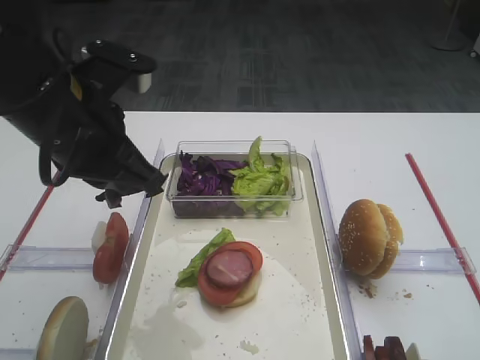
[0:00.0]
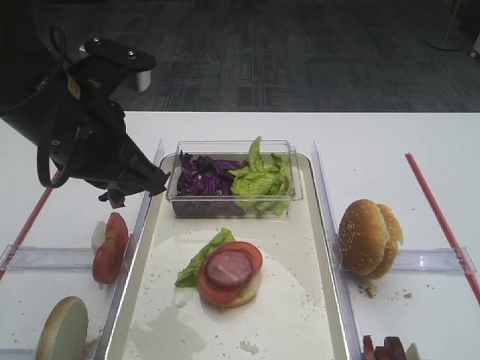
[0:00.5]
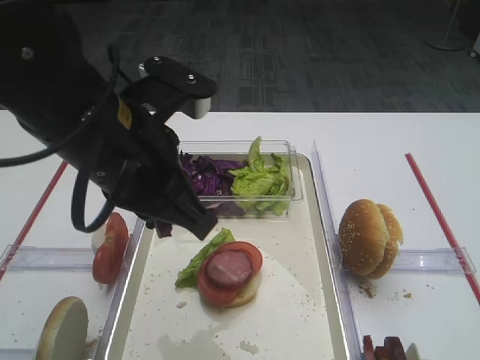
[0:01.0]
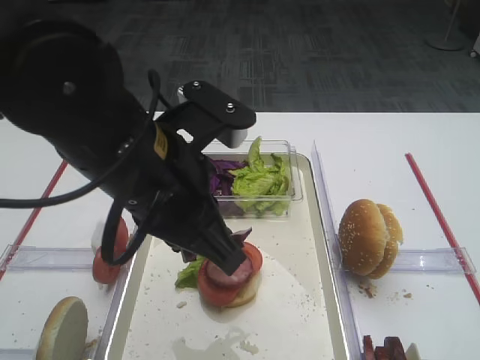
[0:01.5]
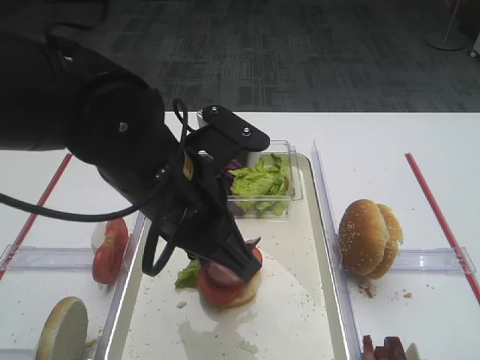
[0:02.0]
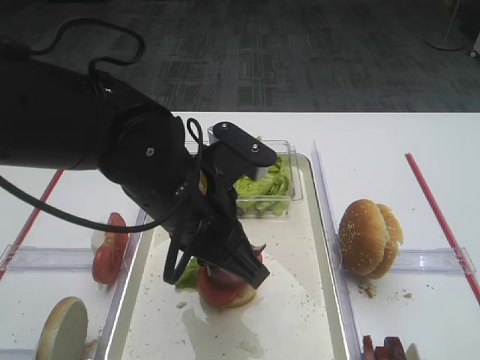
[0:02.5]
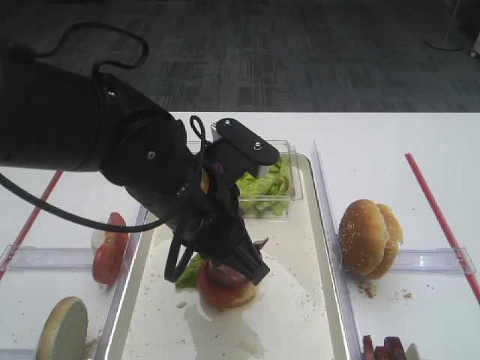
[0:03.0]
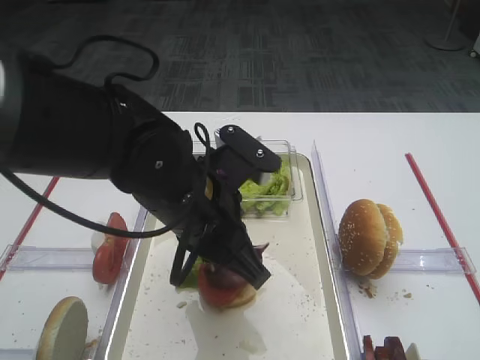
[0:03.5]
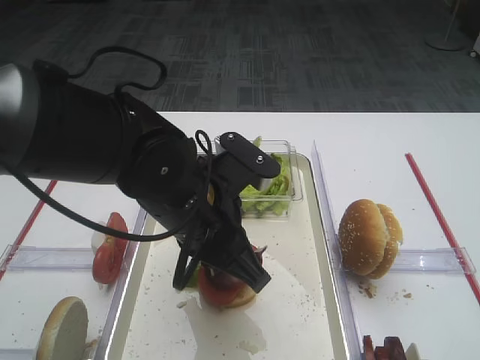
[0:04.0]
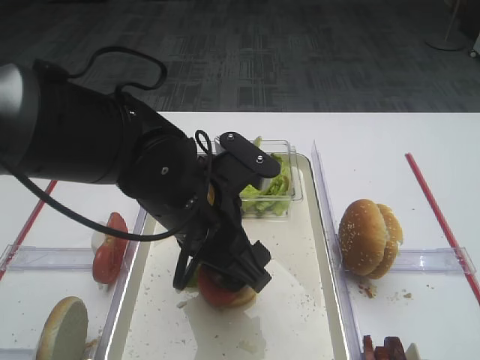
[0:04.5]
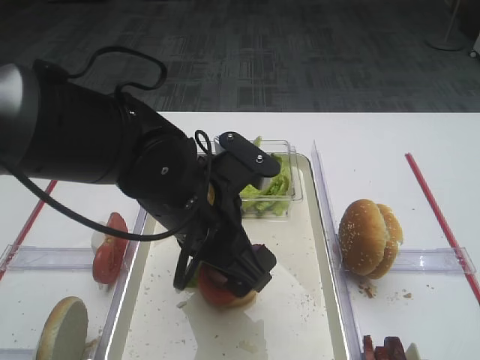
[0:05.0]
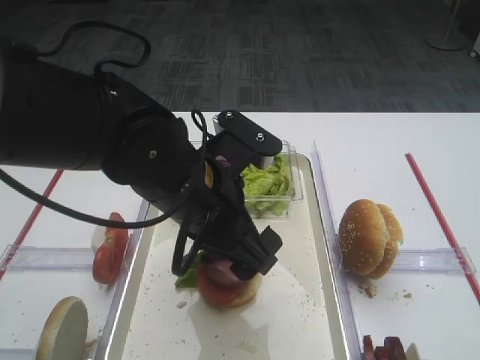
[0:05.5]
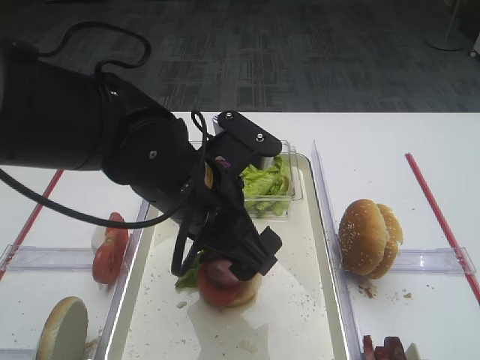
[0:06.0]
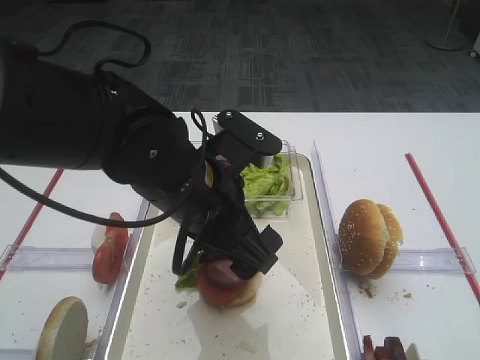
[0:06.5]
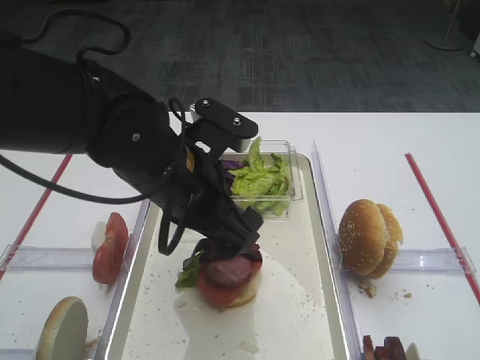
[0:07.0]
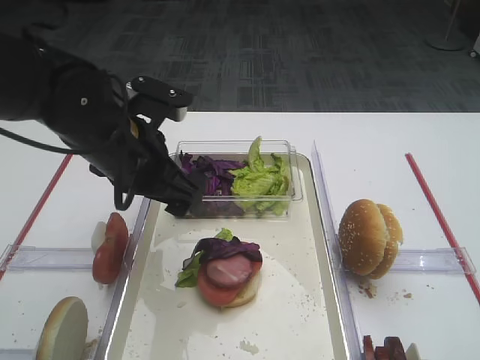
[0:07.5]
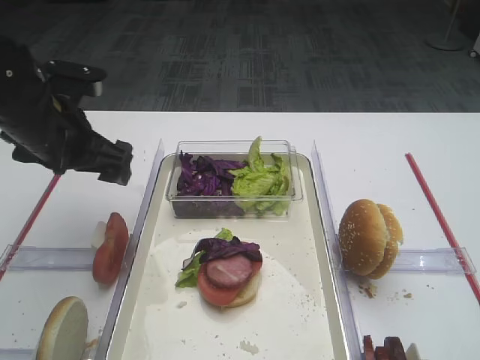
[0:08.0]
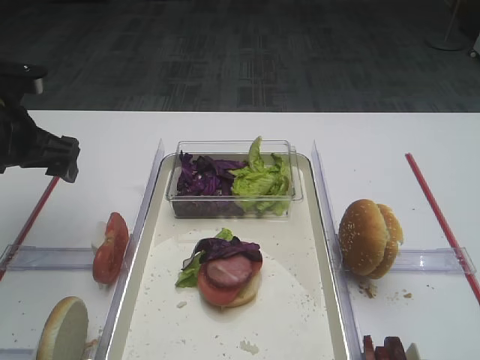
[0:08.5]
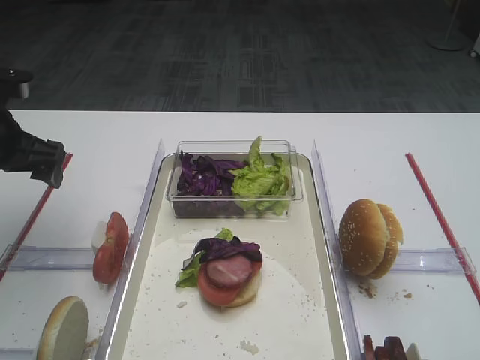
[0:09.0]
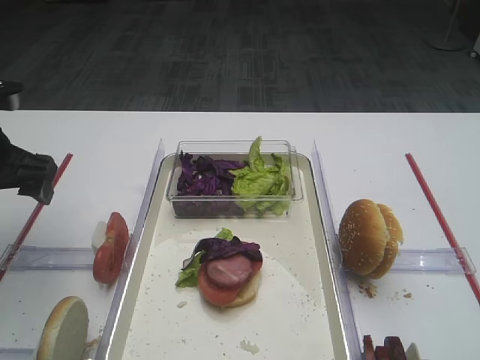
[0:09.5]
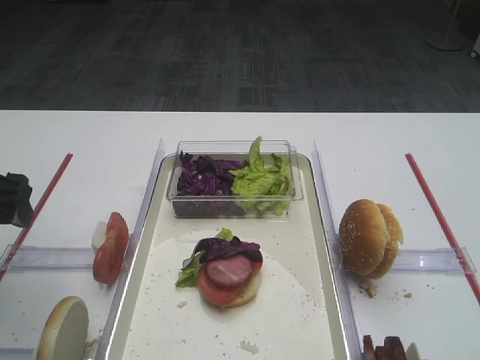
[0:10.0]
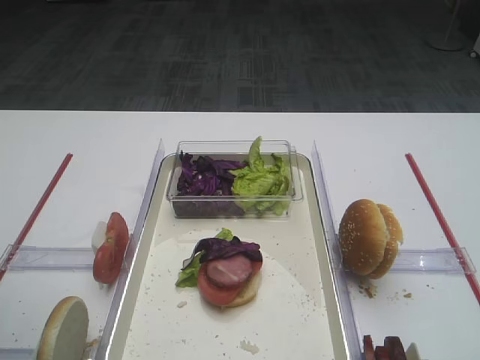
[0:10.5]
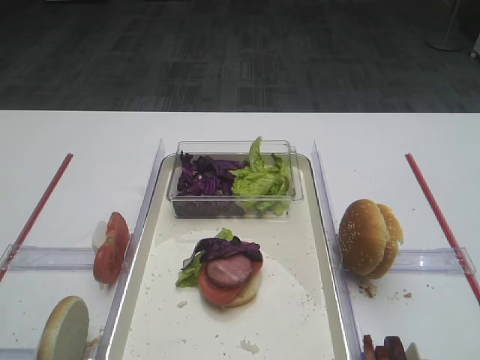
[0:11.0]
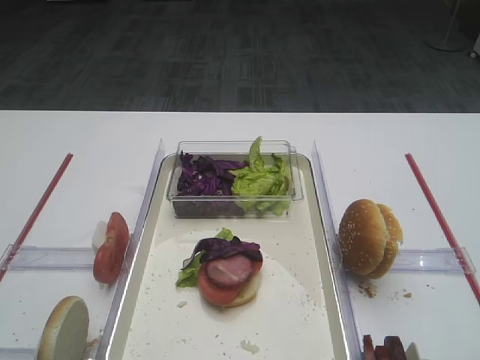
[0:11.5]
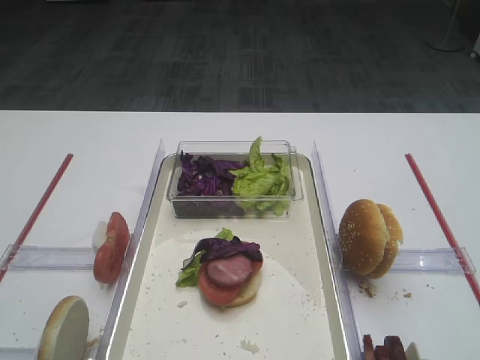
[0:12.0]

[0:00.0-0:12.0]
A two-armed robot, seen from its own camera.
Step, 0:00.0 to 0:07.0: Place the purple cabbage on the cutlet with the left gripper.
0:00.0 to 0:02.0: The left gripper moves to the right, some 10 cm.
0:02.0 to 0:04.0: The left gripper changes place by approximately 5 cm.
0:04.0 to 0:06.0: The left gripper opens its fingers.
0:06.0 to 0:08.0: The left gripper shifts roughly 20 cm to the left and forward.
0:08.0 to 0:10.0: The left gripper goes some 10 cm backward and to the left.
0:10.0 to 0:12.0: The left gripper moves backward, some 25 cm.

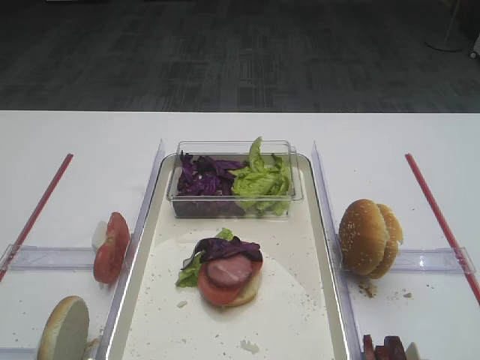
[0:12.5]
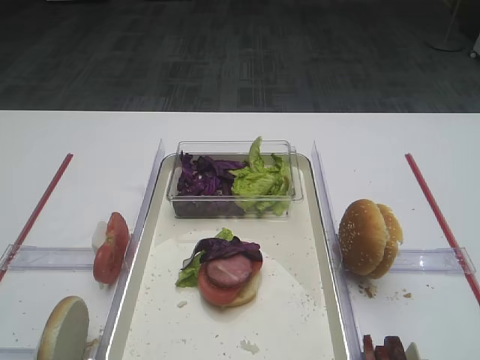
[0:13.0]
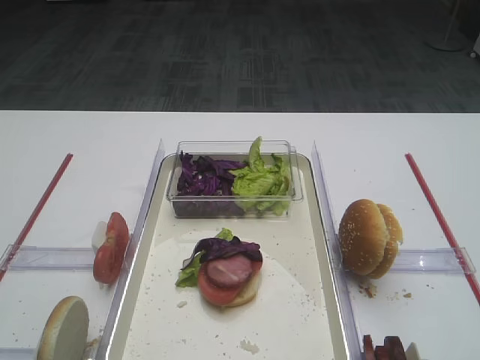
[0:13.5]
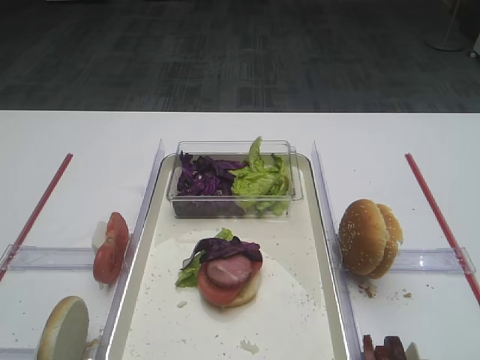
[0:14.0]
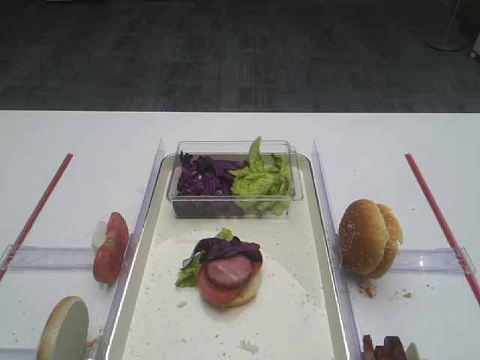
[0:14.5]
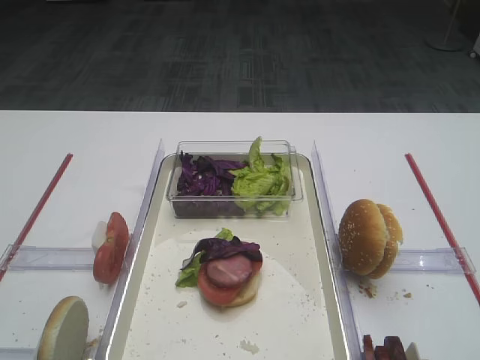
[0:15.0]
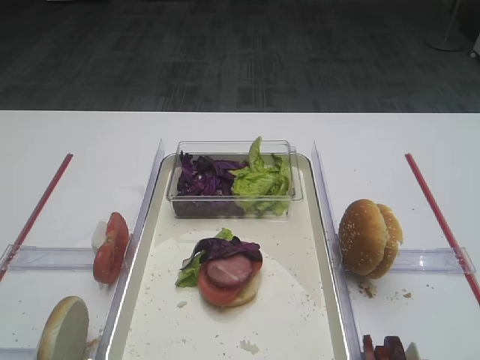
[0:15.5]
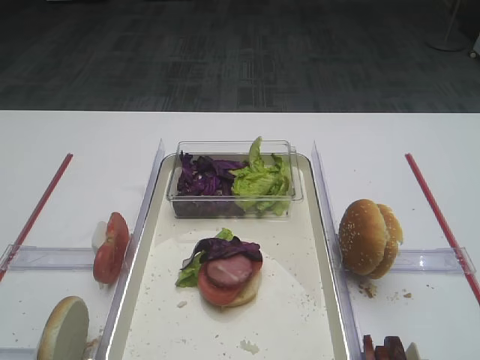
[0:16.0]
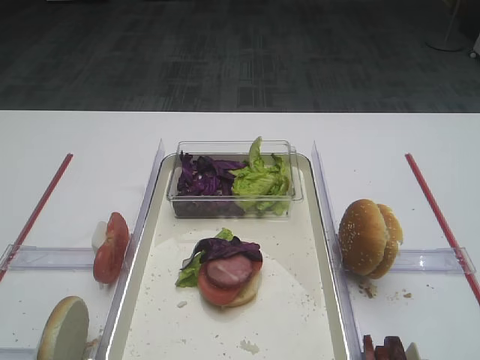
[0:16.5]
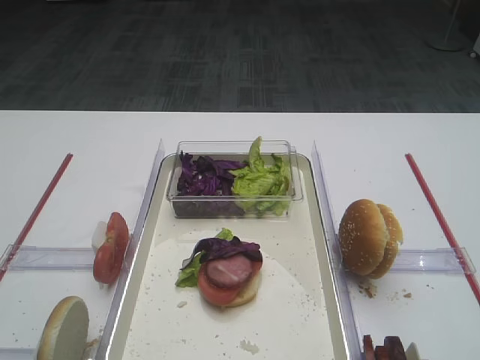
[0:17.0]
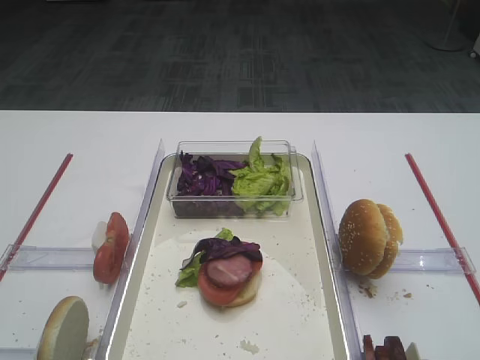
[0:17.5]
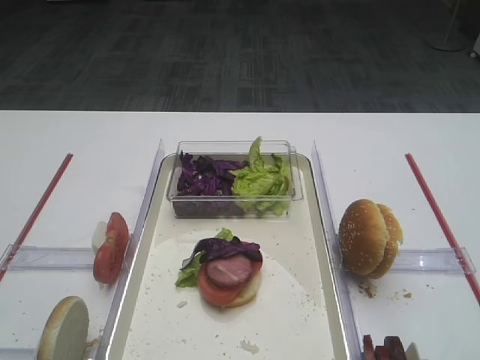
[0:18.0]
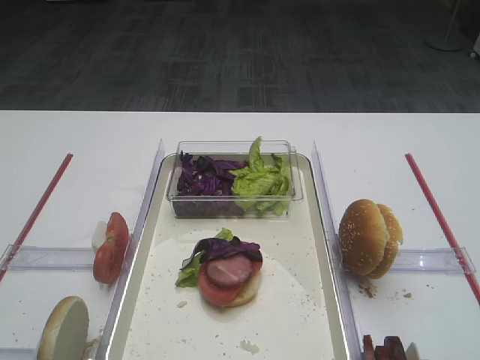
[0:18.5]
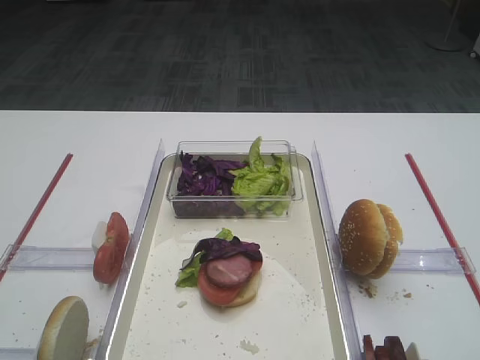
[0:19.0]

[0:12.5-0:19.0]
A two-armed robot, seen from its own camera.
0:12.5 to 0:14.5: Both grippers stay put.

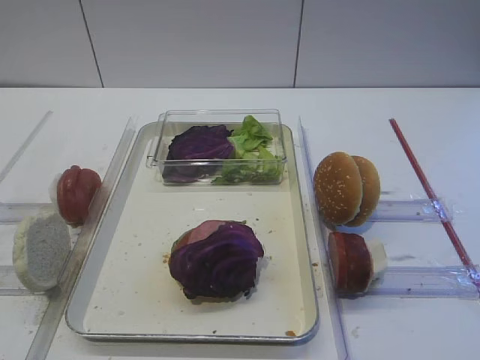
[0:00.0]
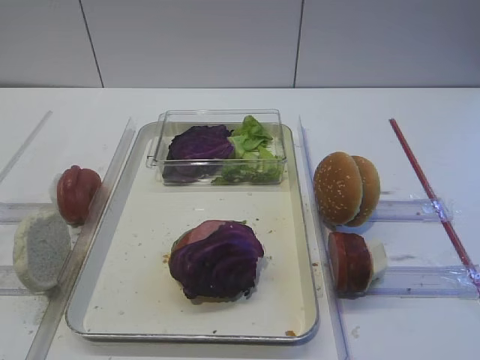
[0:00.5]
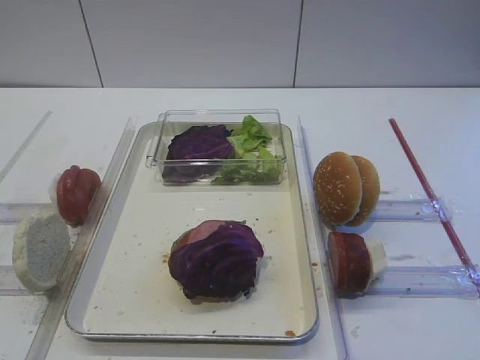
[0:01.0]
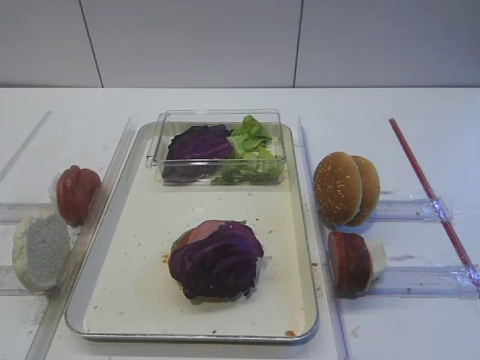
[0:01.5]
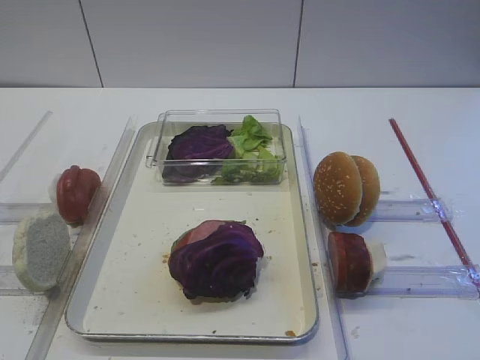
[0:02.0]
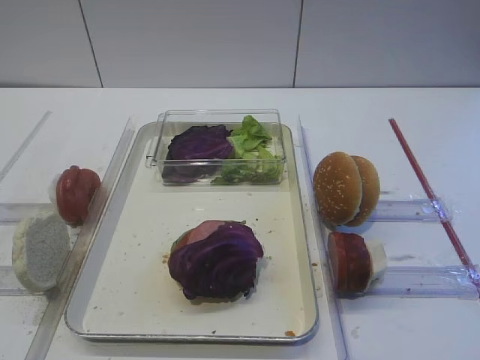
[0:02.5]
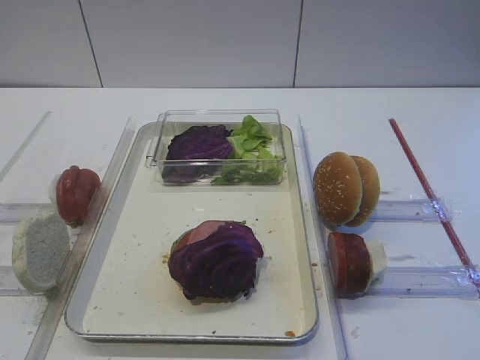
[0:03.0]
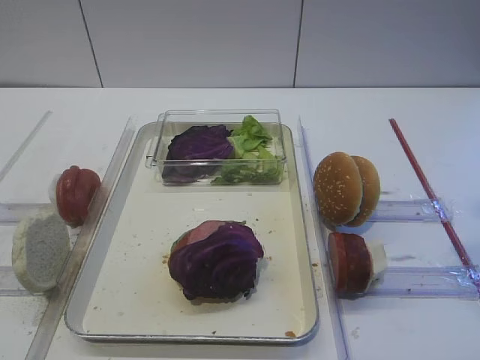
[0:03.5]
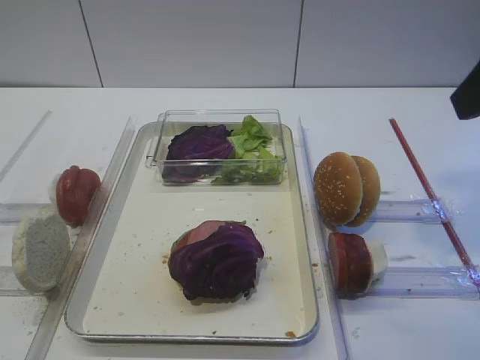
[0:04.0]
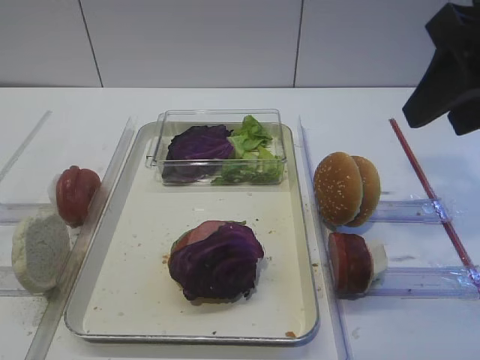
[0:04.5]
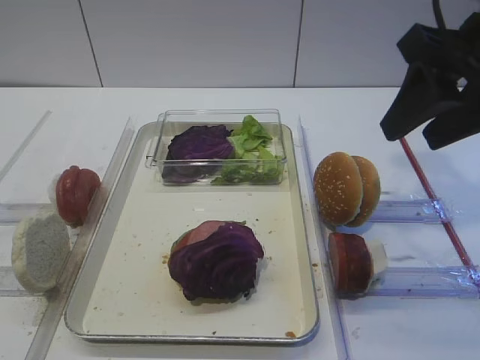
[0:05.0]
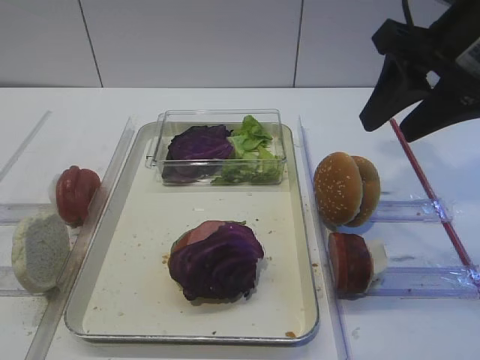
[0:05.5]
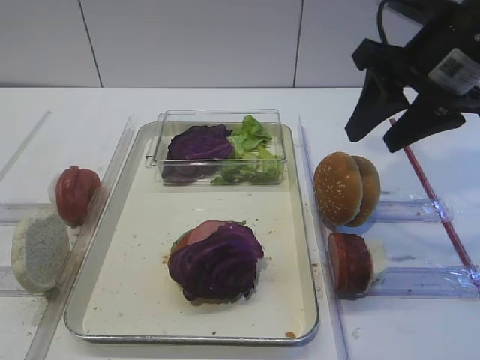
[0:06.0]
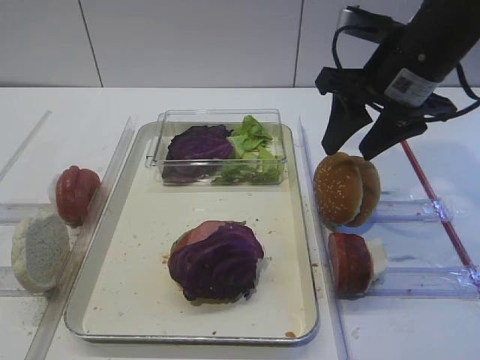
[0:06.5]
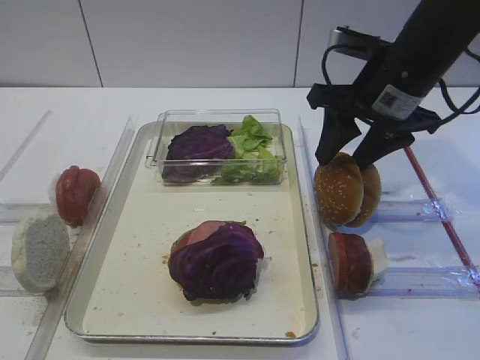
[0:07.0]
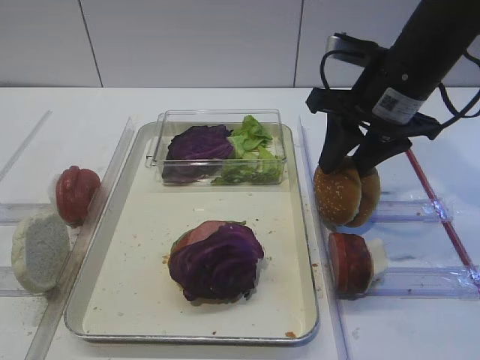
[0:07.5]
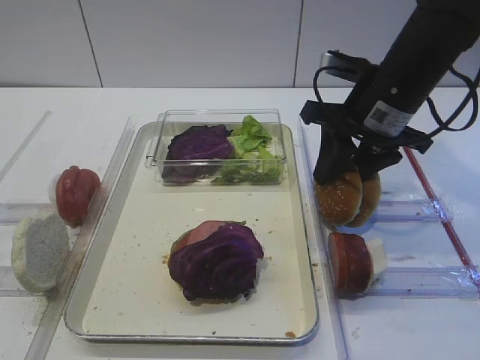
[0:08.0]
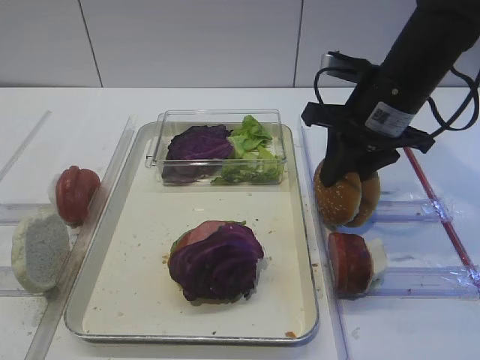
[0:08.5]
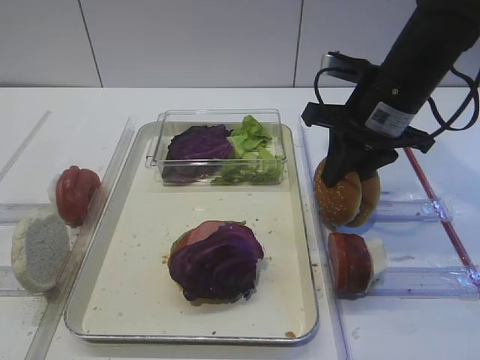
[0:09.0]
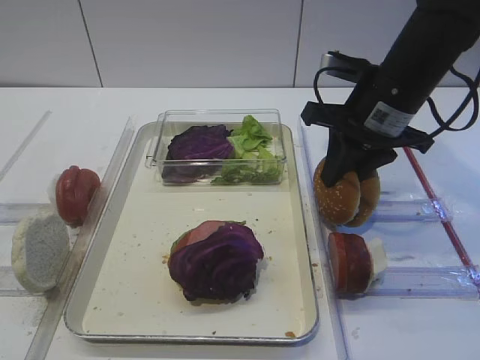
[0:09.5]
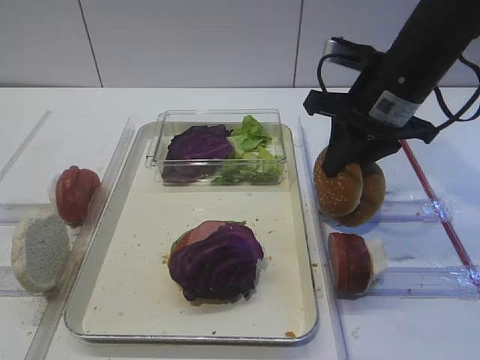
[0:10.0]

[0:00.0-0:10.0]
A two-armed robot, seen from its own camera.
0:02.0 to 0:04.0: The right gripper shifts approximately 25 cm forward and upward.
0:04.0 to 0:06.0: The right gripper moves forward and downward, about 15 cm.
0:06.0 to 0:08.0: The right gripper heads downward, covering roughly 5 cm.
0:08.0 to 0:10.0: The right gripper closes up.
